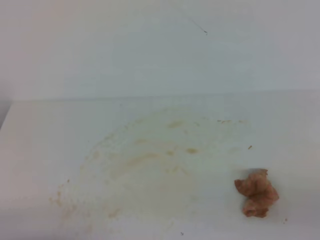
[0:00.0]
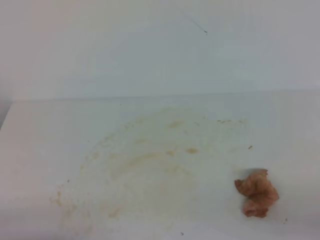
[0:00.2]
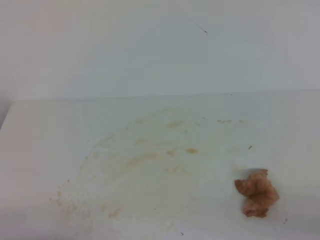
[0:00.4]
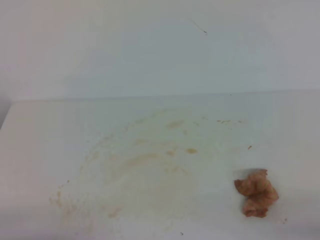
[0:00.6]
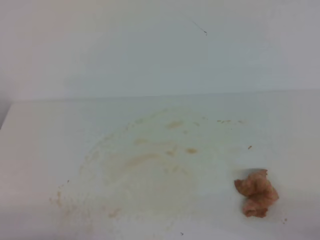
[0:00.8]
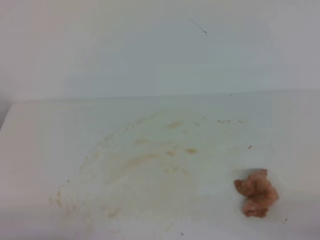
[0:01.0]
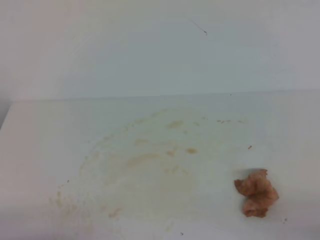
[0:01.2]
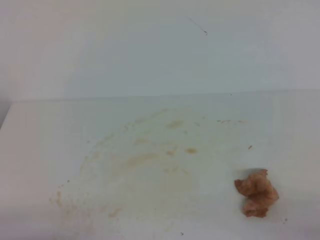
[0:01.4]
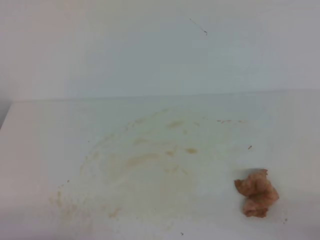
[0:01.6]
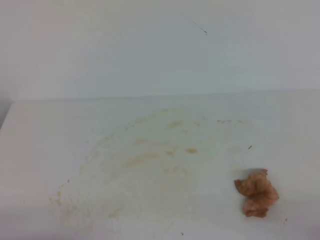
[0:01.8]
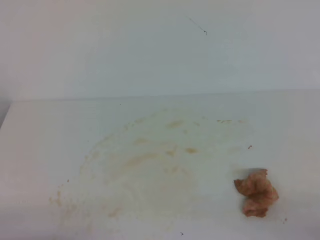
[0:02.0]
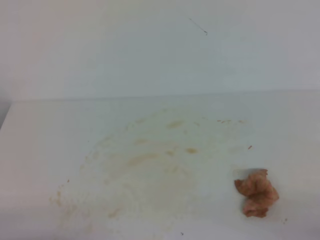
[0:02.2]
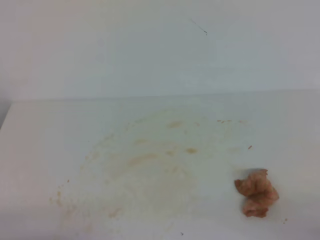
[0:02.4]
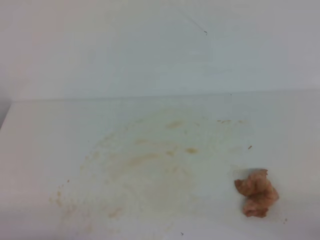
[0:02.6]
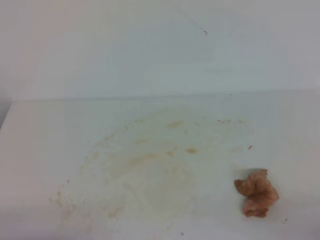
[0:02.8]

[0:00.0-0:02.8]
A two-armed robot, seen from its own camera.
0:01.4 to 0:02.8: Both grippers stay about where they are.

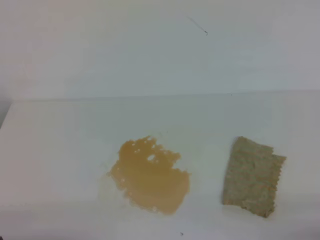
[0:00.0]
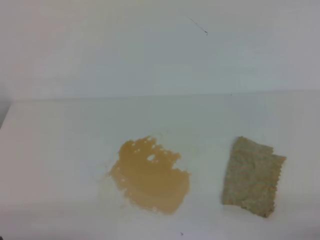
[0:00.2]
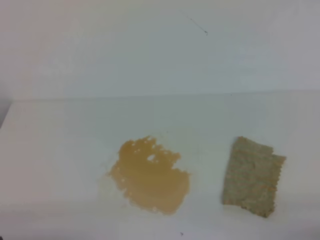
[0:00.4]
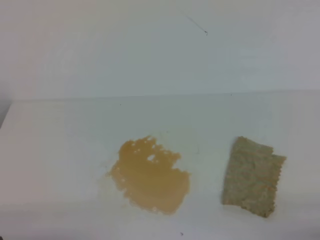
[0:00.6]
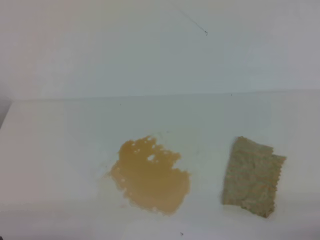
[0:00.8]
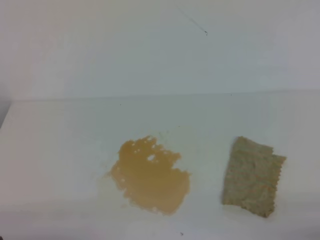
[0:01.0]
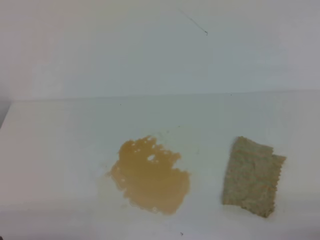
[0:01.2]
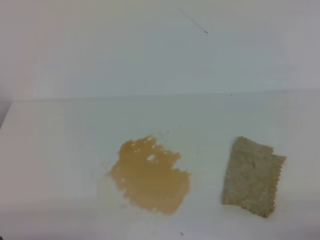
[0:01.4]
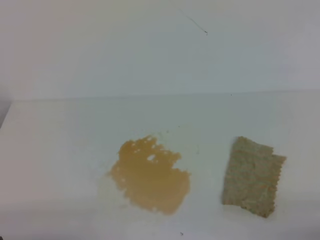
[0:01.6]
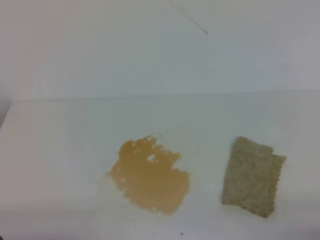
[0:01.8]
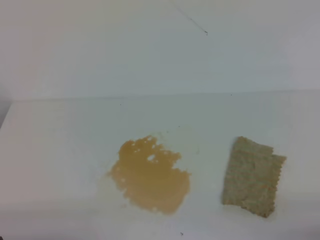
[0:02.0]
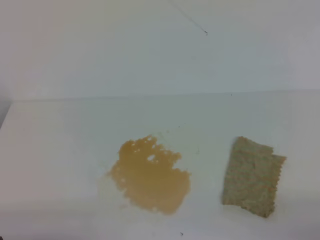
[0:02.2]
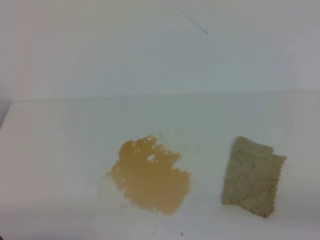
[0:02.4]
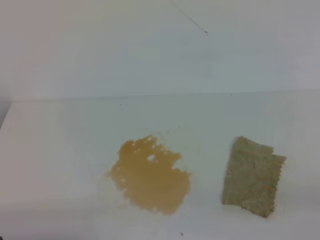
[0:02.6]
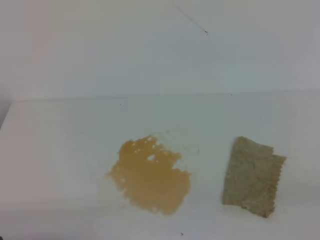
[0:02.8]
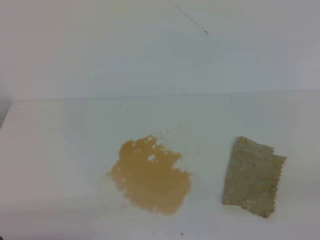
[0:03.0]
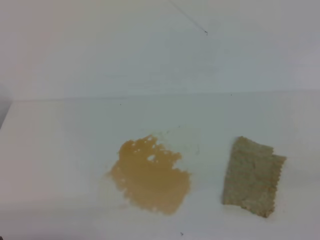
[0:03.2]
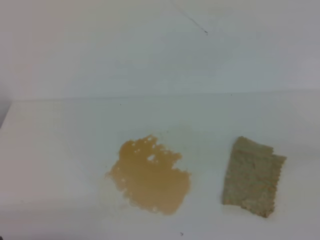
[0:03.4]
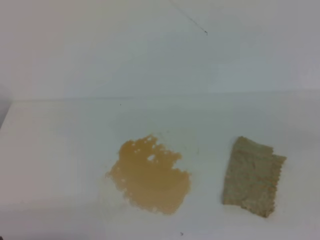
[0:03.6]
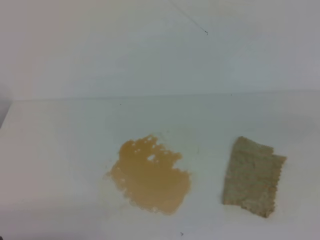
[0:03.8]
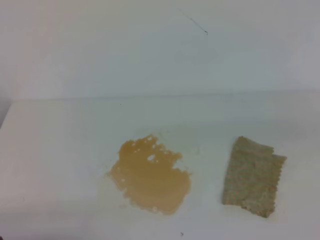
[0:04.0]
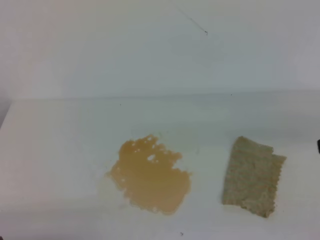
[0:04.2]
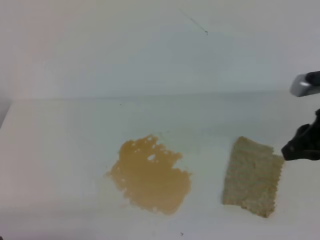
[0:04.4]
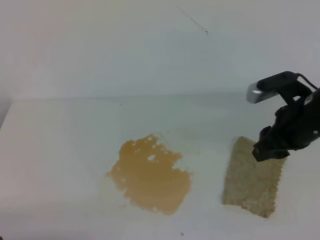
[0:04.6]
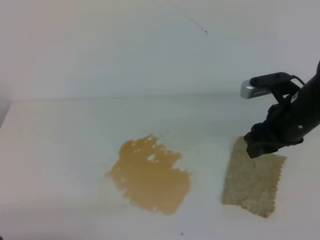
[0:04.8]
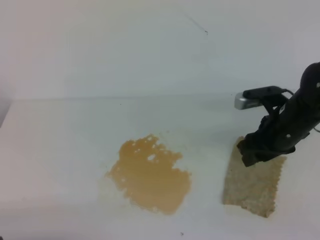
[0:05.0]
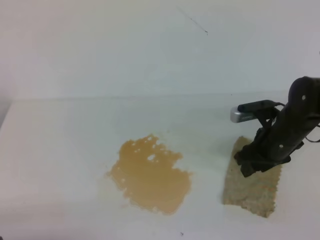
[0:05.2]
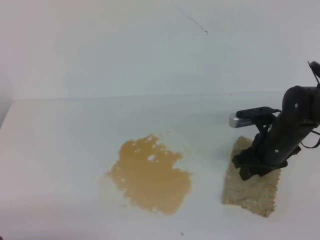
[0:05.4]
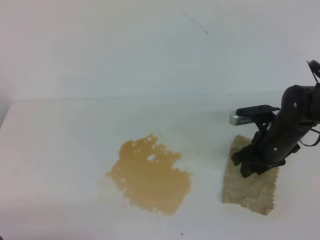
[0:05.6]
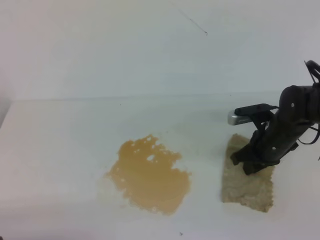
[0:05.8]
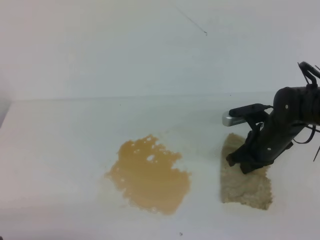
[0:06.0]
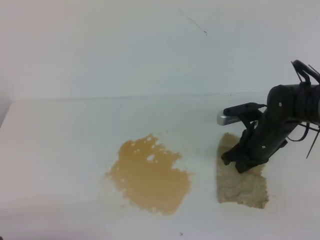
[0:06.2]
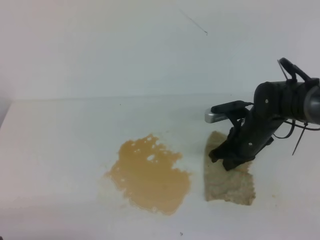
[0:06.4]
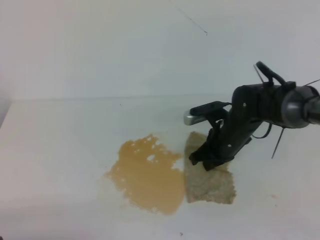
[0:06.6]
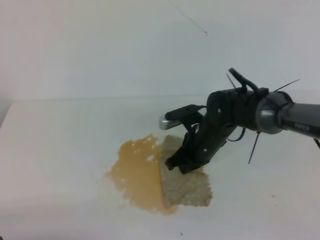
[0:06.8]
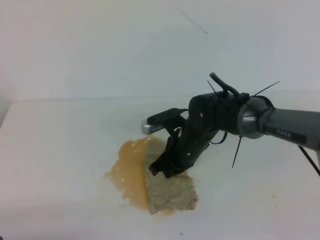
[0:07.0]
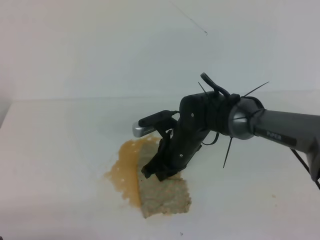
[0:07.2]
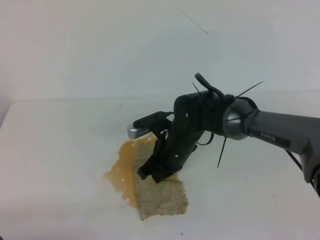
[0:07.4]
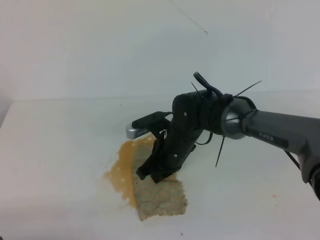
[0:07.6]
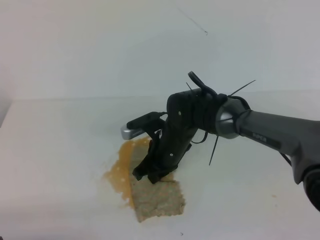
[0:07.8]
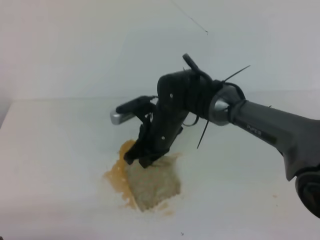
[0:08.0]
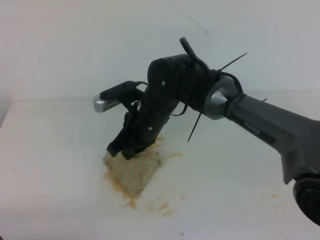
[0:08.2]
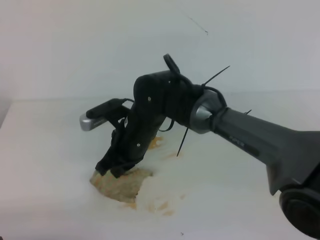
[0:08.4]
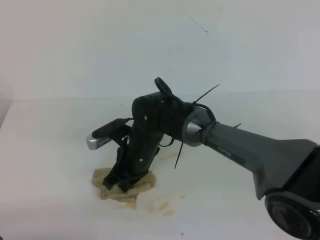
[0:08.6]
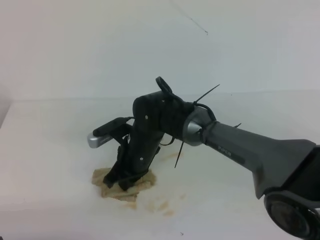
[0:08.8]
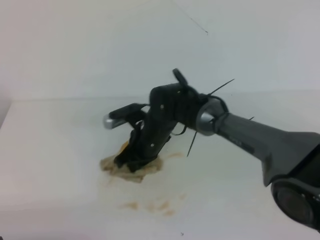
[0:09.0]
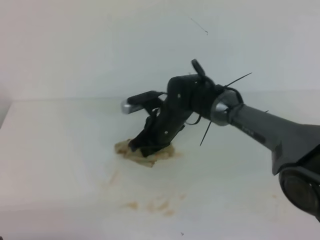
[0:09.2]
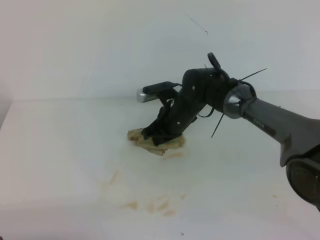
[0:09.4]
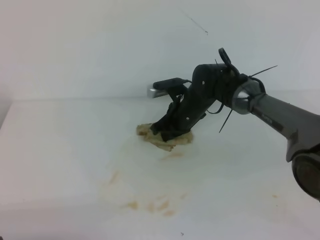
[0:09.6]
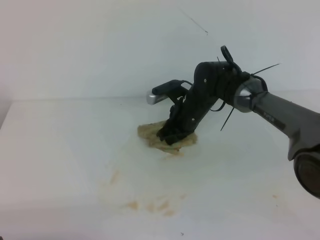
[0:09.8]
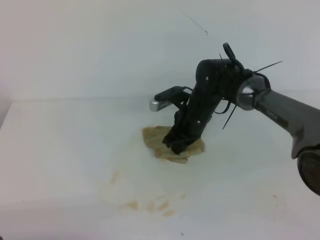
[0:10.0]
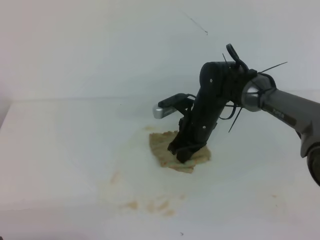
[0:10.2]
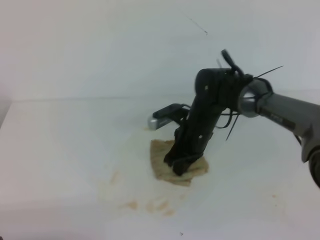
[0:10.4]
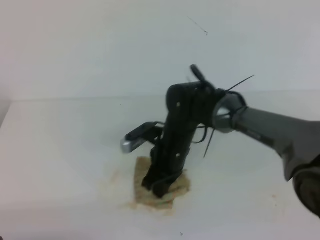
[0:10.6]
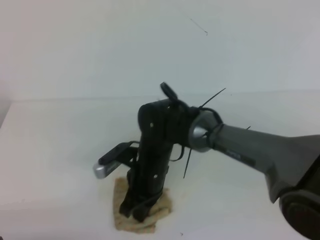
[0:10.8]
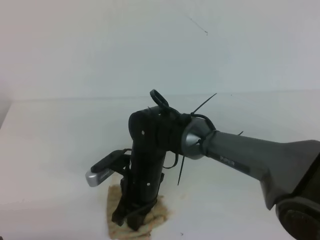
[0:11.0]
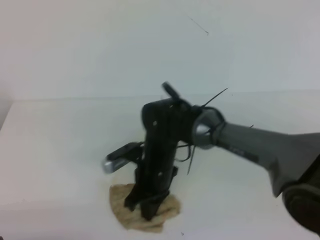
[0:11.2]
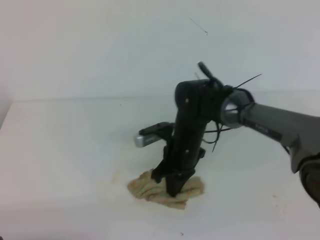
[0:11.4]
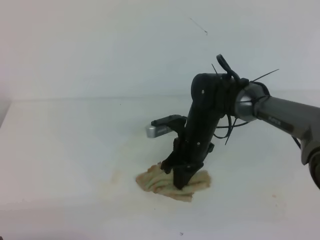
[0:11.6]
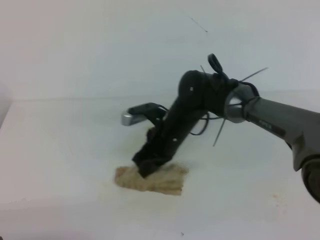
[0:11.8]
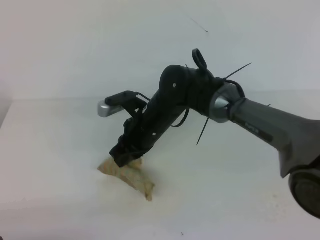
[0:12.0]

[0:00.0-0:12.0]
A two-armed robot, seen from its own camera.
0:00.0 to 0:01.6: Neither gripper changes place.
0:03.0 to 0:04.4: The right gripper moves forward, about 25 cm, and opens.
0:04.4 to 0:06.0: The right gripper goes roughly 20 cm downward, forward and to the left, and opens and closes again.
0:06.0 to 0:07.6: The right gripper shifts about 20 cm to the left.
0:07.6 to 0:09.0: The right gripper reaches some 10 cm upward, then returns.
0:09.0 to 0:10.4: The right gripper shifts about 5 cm to the right.
0:10.4 to 0:12.0: The right gripper shifts roughly 10 cm to the left and upward, and goes backward and returns, about 10 cm each way.

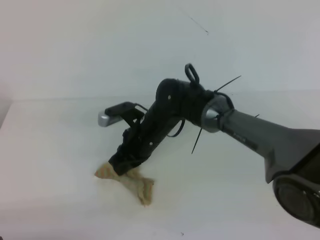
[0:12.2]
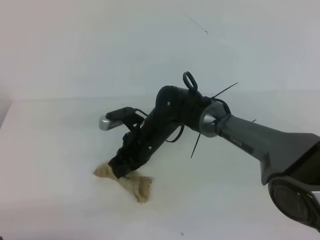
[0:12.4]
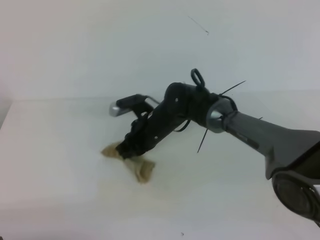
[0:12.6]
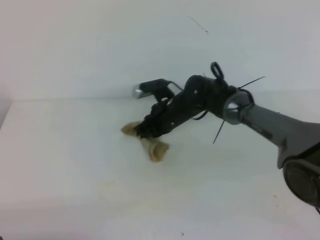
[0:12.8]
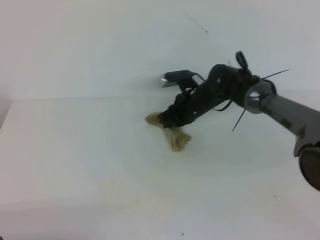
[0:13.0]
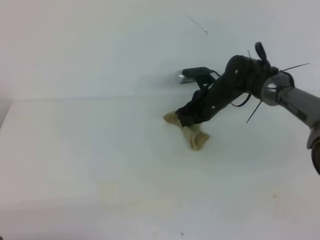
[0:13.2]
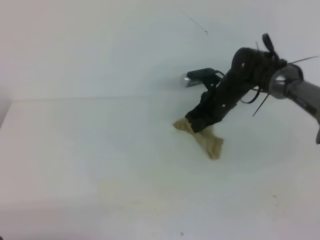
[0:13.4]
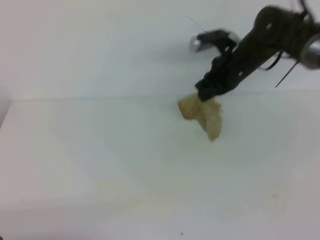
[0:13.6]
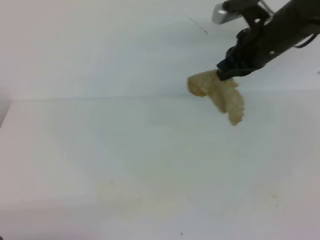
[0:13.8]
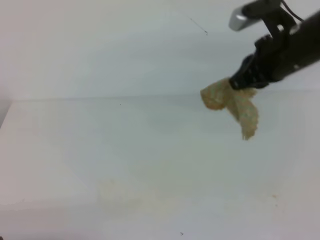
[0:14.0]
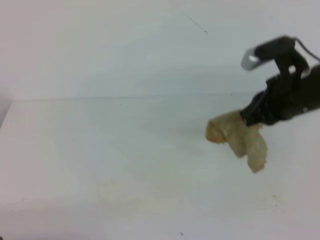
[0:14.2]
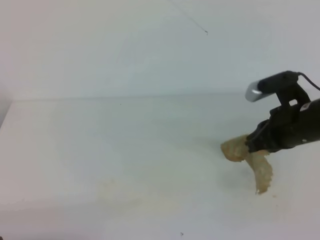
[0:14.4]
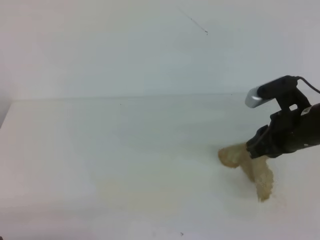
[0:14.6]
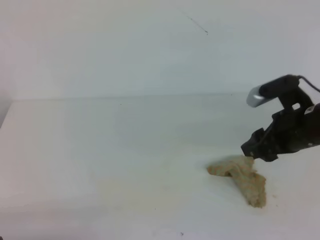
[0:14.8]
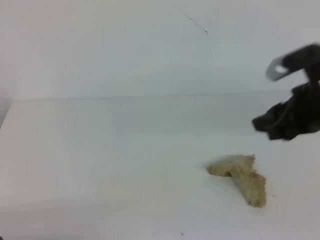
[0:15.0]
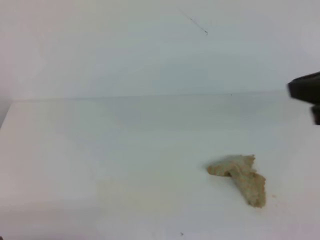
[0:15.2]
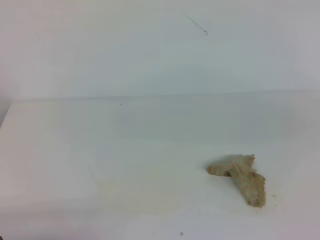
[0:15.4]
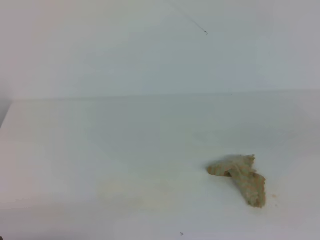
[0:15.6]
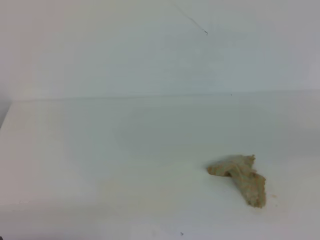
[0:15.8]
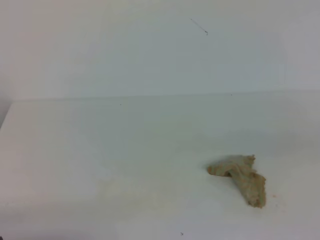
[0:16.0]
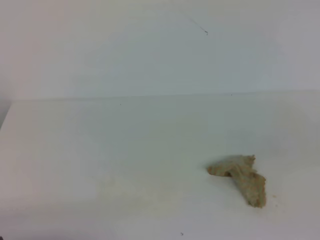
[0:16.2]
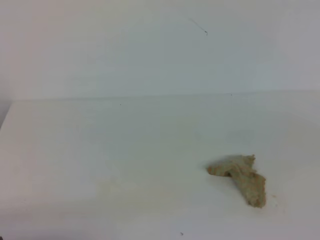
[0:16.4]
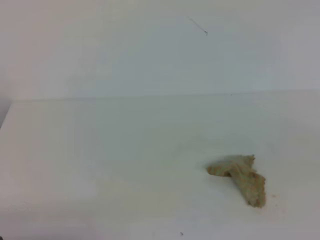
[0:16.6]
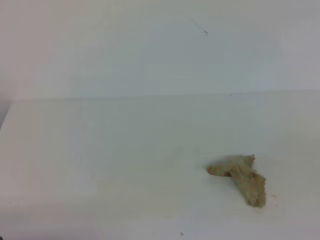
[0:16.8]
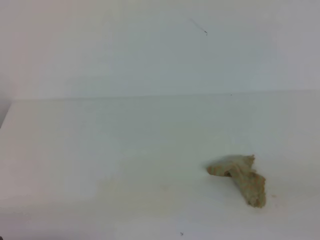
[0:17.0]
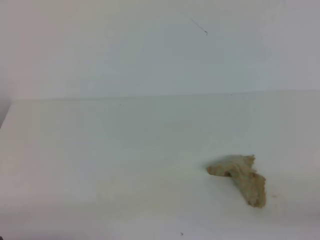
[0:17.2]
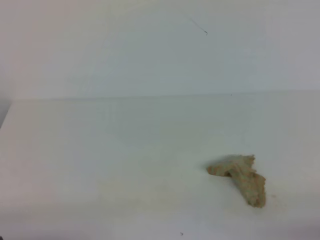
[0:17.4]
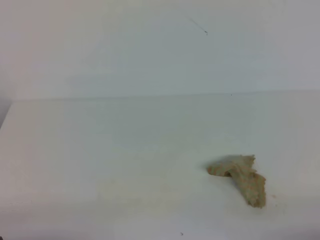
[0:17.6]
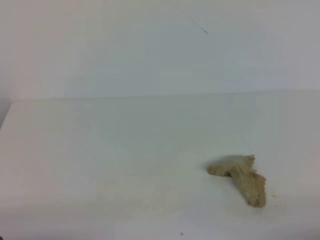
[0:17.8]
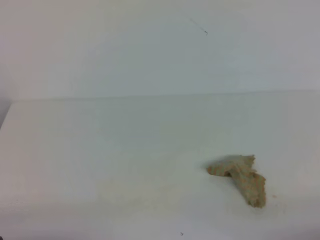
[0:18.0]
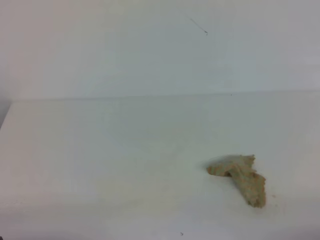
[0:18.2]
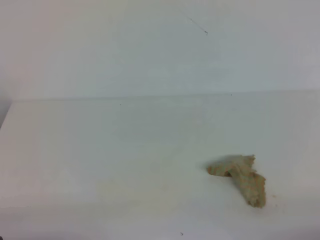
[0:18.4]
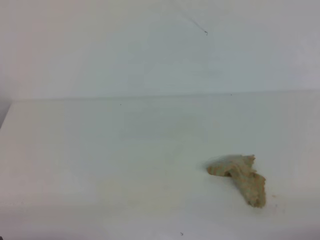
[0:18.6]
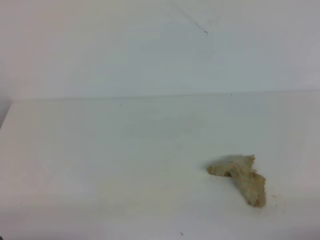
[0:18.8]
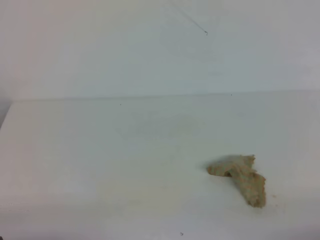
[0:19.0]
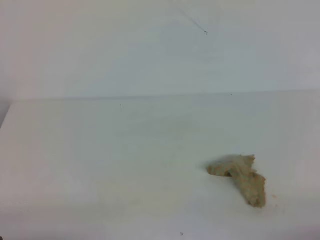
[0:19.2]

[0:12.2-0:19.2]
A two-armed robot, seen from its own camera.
0:12.2 to 0:13.6: The right gripper moves to the right, upward and forward, approximately 20 cm.
0:13.6 to 0:15.0: The right gripper shifts approximately 20 cm backward and to the right, and opens up.
0:15.0 to 0:16.4: The right gripper travels backward and to the right by about 20 cm, and closes up.
0:17.8 to 0:19.2: Both grippers stay about where they are.
